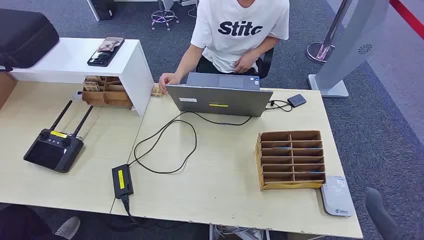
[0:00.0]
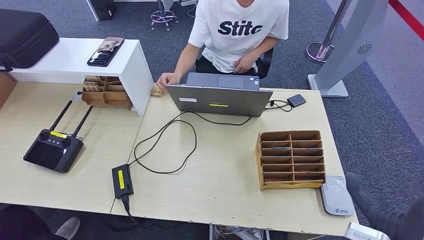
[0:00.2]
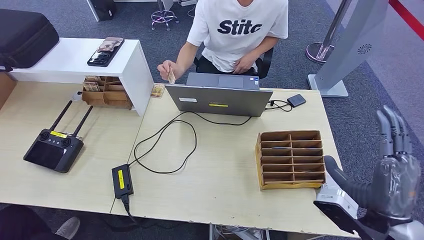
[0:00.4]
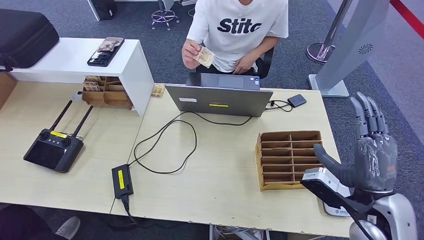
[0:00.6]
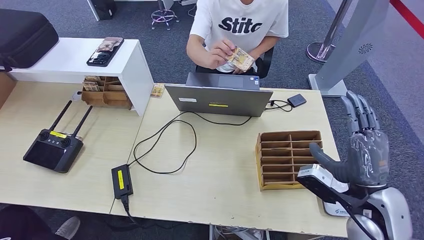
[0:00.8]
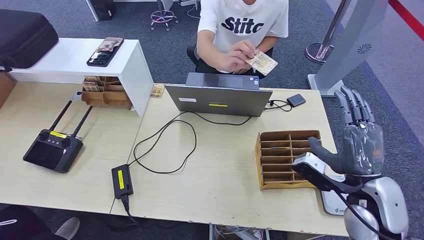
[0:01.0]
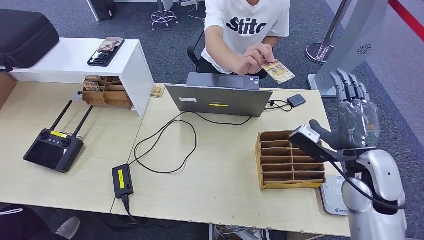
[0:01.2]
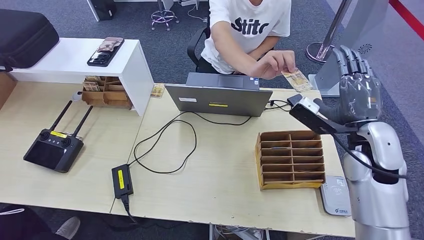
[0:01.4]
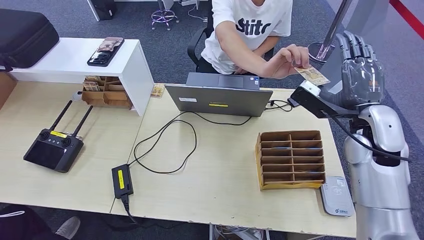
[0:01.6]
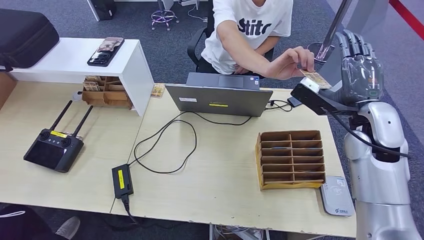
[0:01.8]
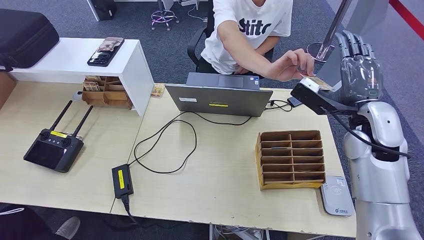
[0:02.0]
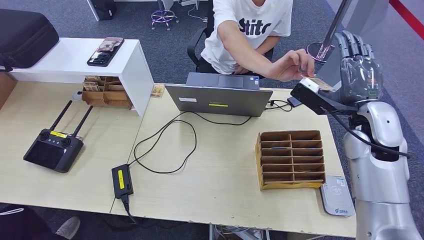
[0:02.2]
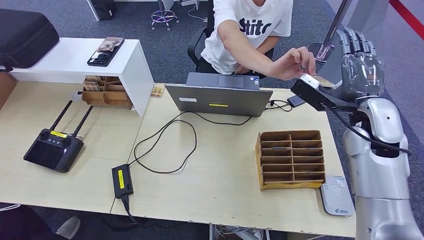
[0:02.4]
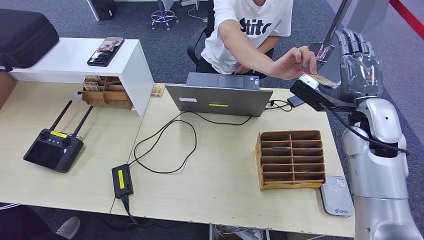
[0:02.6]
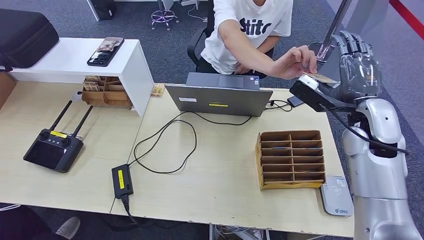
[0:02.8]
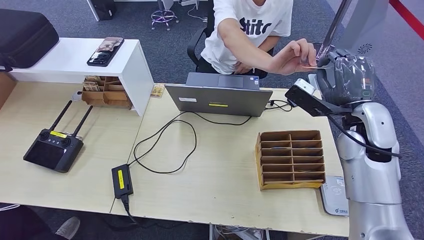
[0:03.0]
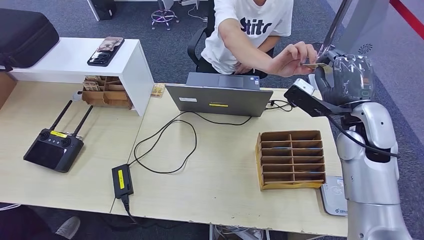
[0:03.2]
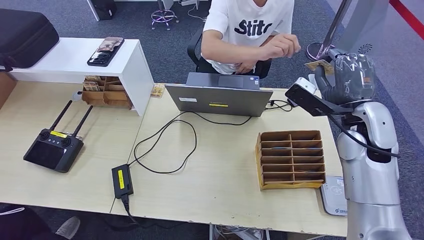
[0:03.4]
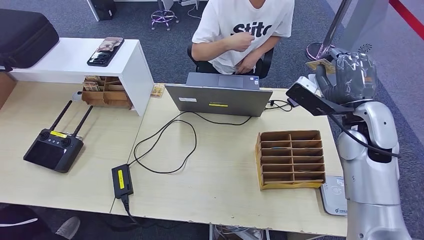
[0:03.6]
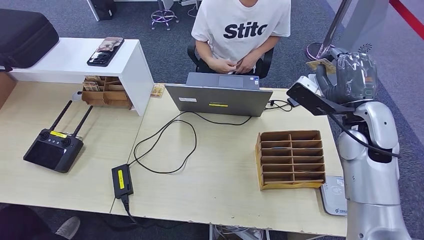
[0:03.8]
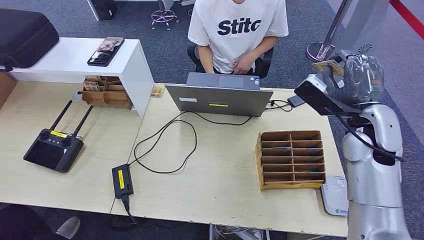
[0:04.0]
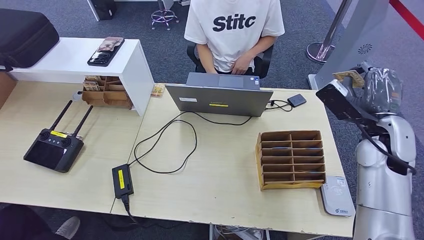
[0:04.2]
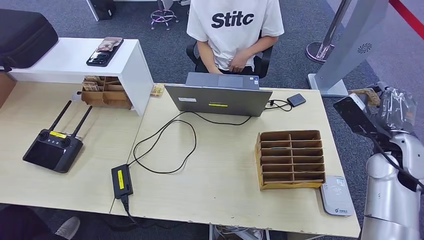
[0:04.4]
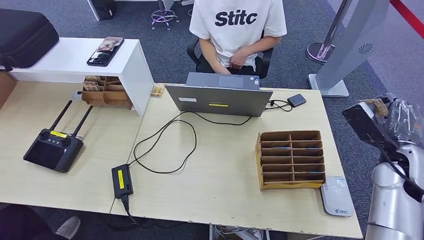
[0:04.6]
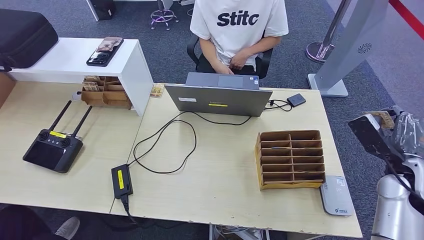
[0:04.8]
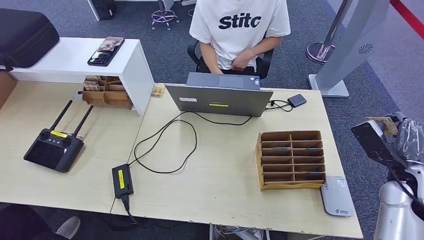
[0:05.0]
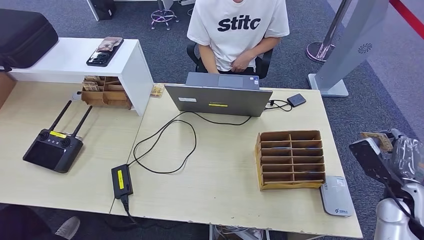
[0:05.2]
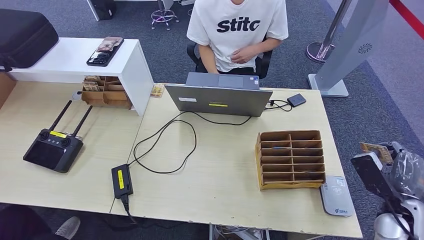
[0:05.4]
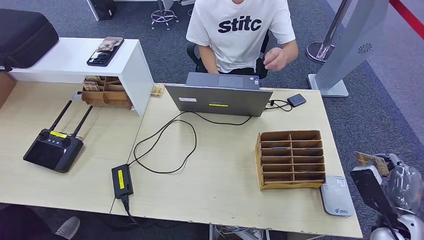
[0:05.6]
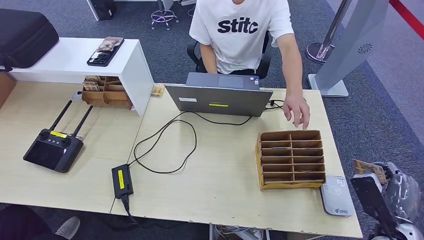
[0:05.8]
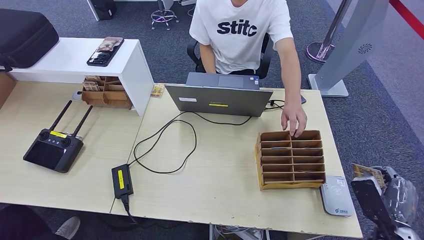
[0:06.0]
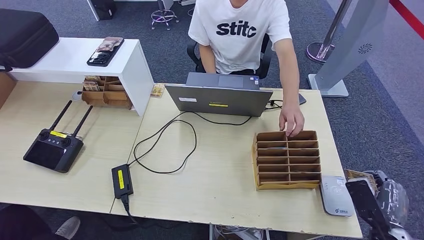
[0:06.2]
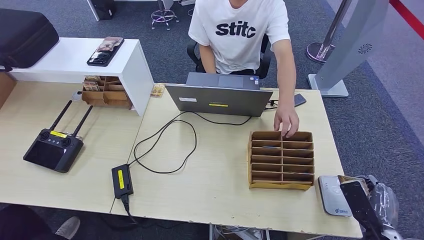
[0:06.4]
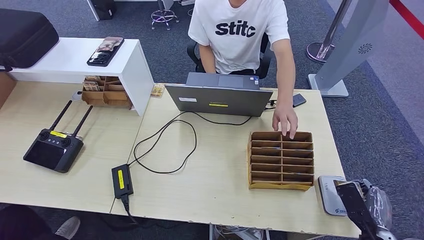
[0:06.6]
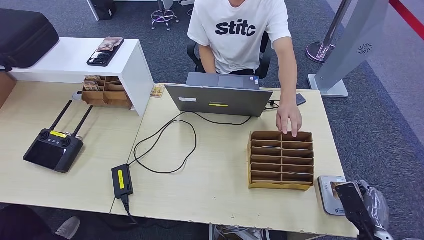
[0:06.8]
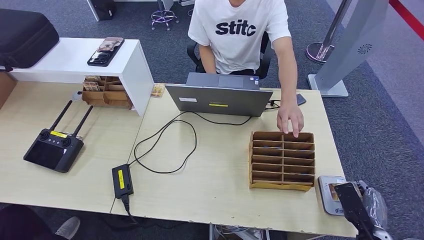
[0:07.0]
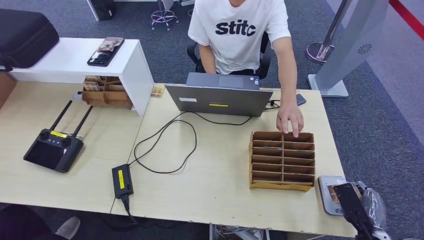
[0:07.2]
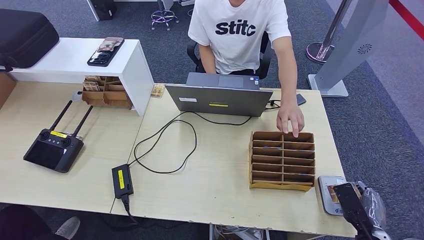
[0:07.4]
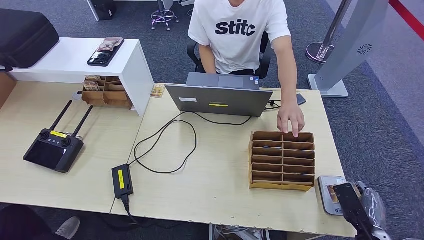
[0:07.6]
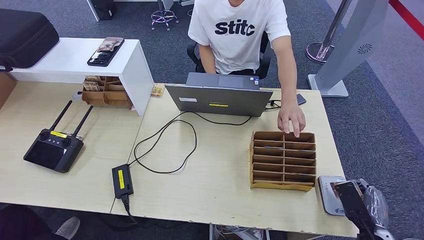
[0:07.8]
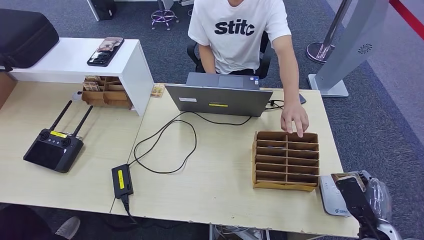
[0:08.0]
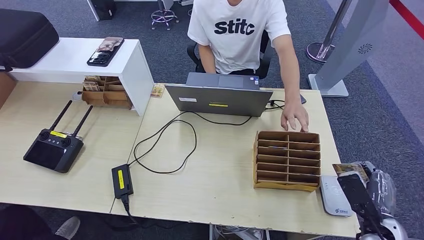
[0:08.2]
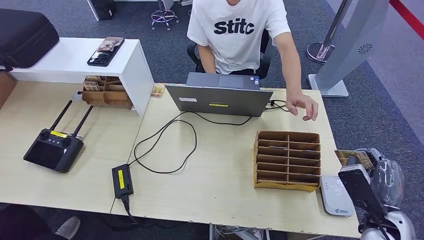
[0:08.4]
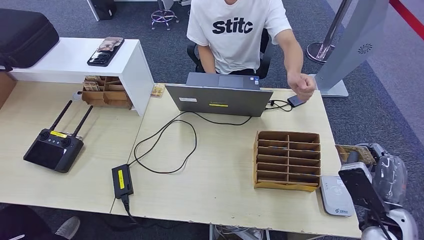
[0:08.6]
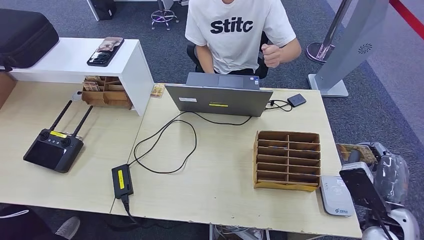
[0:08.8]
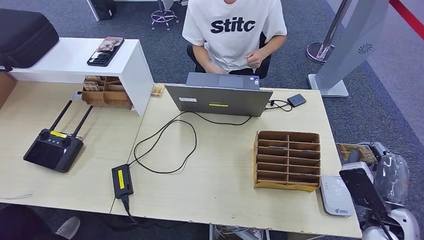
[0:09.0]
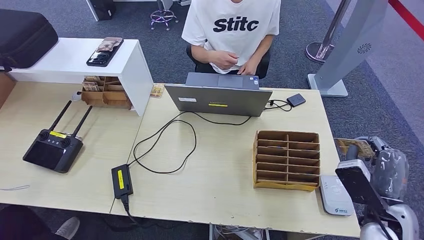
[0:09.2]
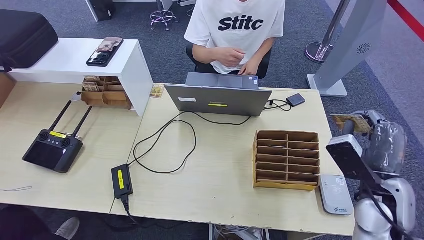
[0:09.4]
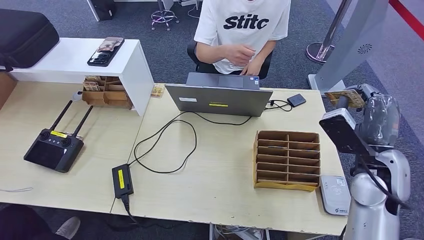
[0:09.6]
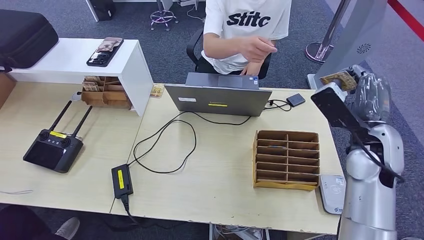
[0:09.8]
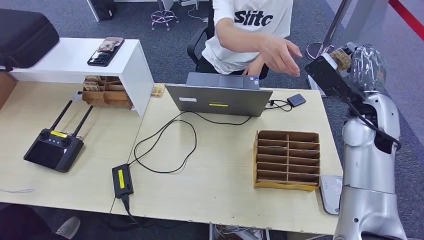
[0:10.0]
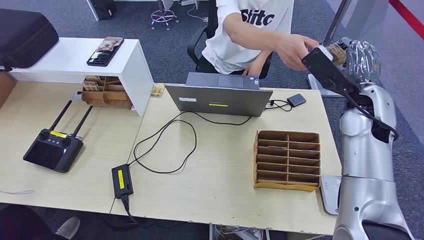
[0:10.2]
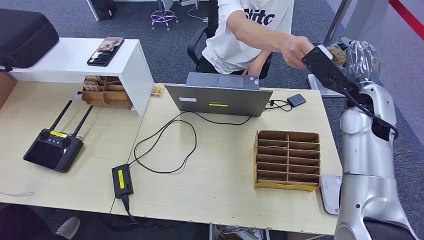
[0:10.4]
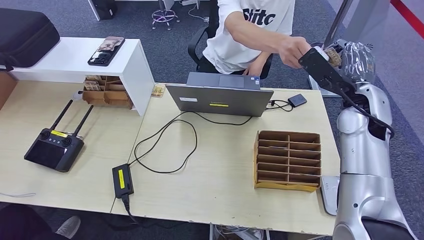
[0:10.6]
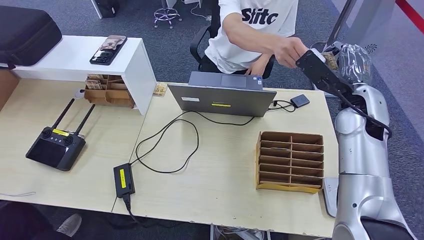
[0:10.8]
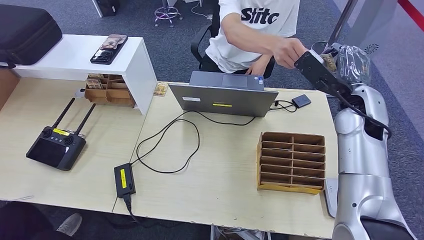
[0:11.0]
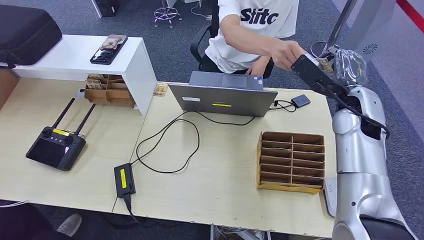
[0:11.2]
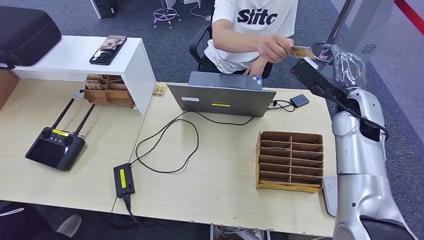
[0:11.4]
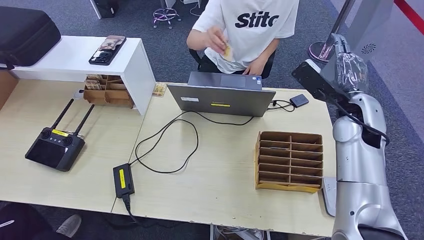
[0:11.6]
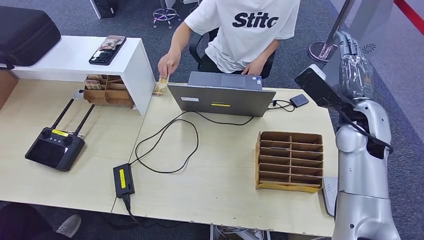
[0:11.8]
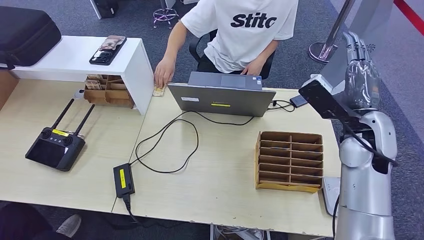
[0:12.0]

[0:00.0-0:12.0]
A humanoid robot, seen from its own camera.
Step, 0:00.0 to 0:04.2: Take the ID card from the person's hand.
Step, 0:04.4 to 0:09.4: Place the ID card on the card reader.
0:01.6 to 0:03.0: The hands make only small movements.
0:03.0 to 0:04.4: The right hand travels to the right and downward by roughly 10 cm.
0:04.4 to 0:06.0: The right hand heads backward and downward, covering approximately 20 cm.
0:06.0 to 0:07.6: The right hand moves downward, approximately 5 cm.
0:07.6 to 0:09.0: The right hand heads upward, covering some 10 cm.
0:09.0 to 0:10.4: The right hand is displaced forward and upward by approximately 25 cm.

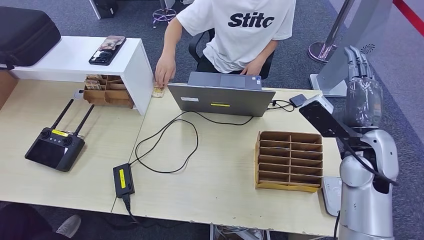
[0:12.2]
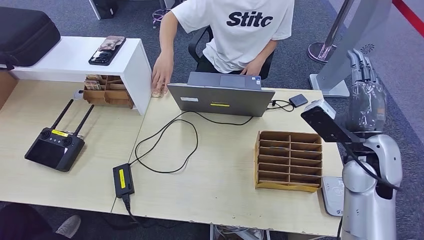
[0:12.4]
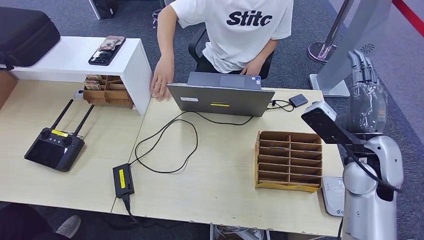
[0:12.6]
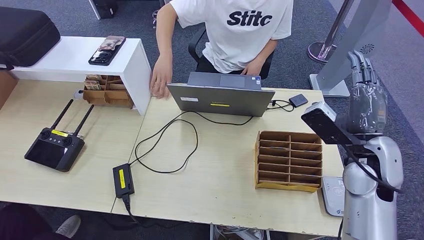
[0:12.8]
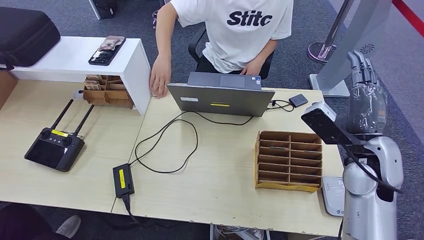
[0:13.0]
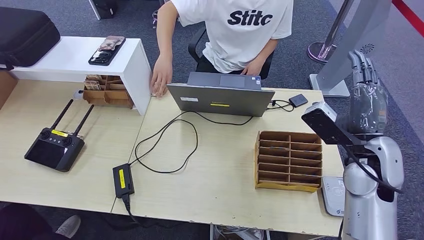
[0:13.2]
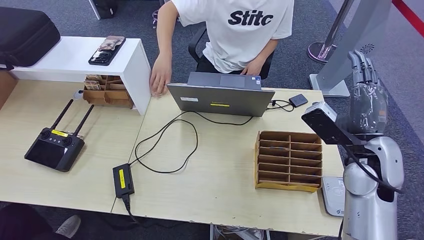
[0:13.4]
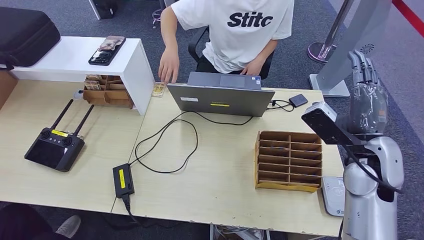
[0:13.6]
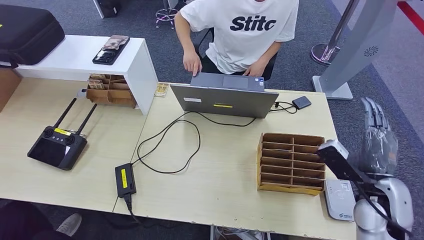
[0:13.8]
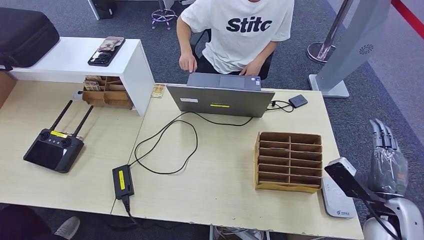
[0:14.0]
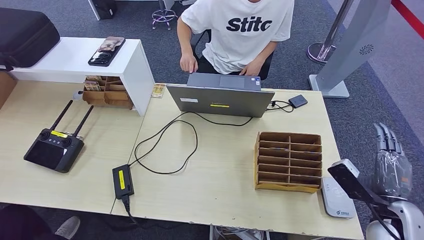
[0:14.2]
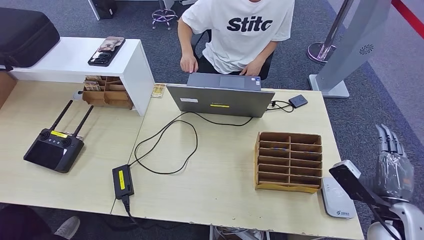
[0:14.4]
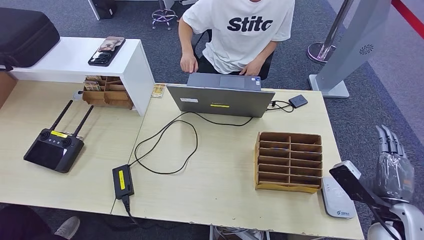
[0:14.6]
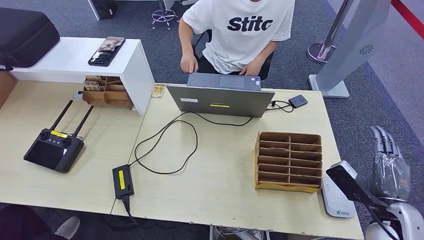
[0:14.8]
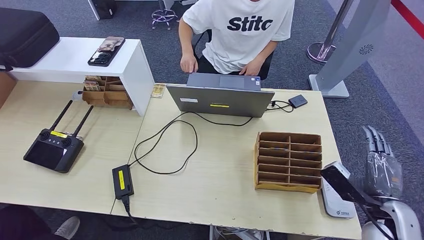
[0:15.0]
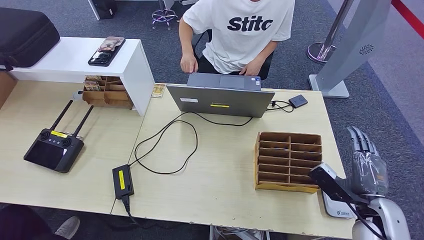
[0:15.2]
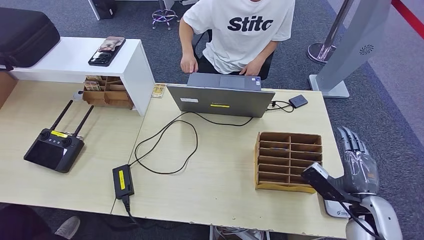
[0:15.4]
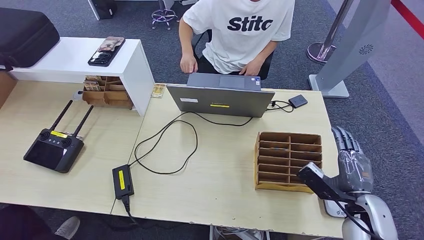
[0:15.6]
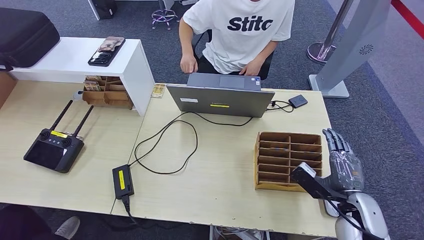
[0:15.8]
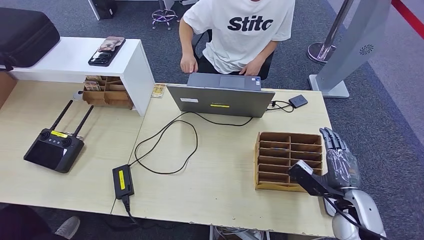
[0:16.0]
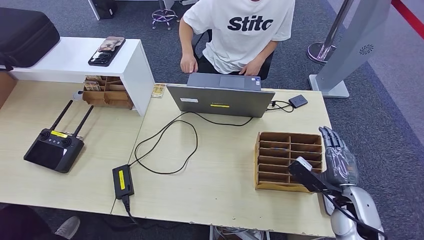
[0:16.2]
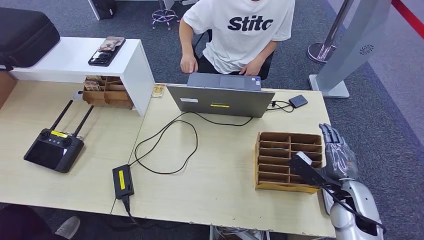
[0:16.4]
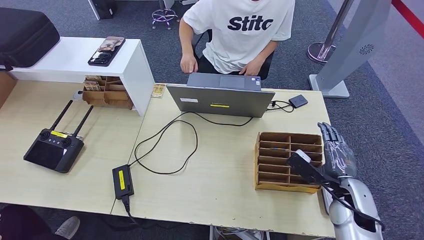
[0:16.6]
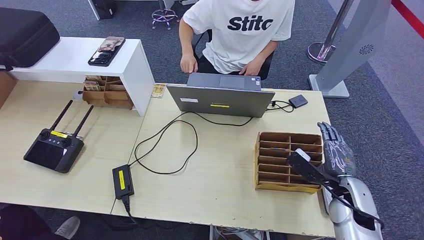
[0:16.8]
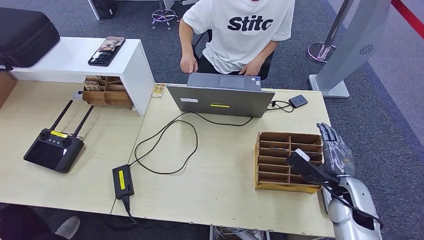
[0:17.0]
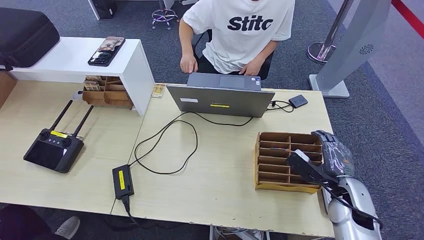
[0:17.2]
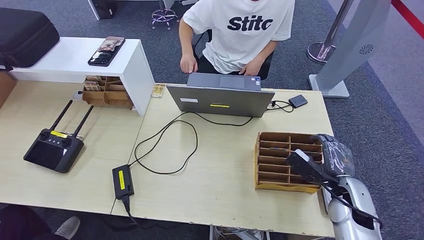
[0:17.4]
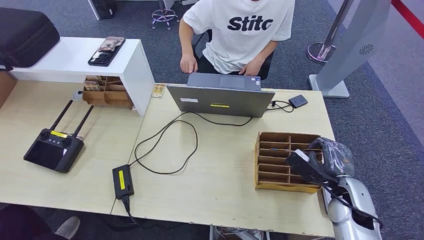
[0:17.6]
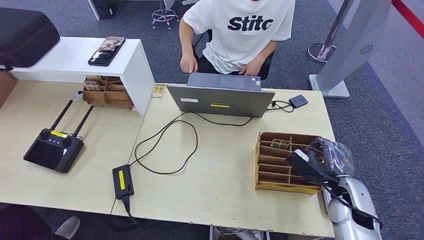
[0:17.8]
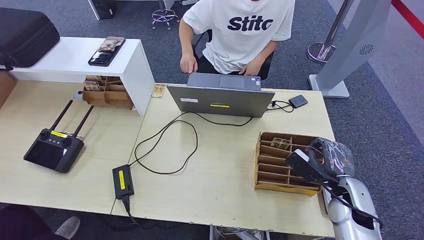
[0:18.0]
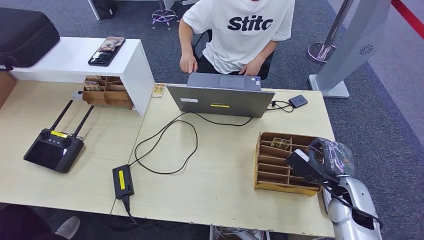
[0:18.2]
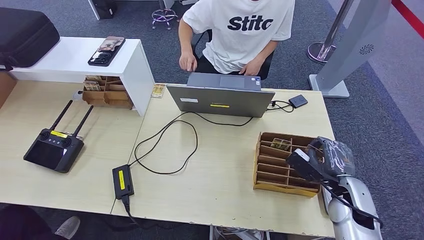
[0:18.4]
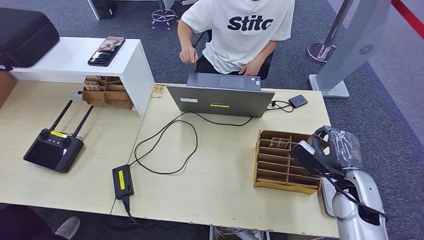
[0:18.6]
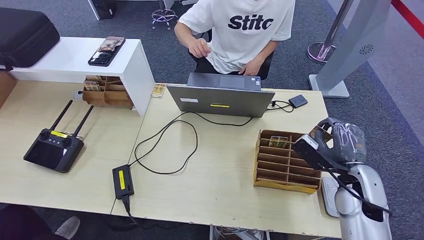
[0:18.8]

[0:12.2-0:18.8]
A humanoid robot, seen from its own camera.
Step, 0:12.8 to 0:18.8: Pick up the room key from the key card box.
0:15.4 to 0:17.2: The right hand heads forward, covering approximately 5 cm.
0:17.2 to 0:18.8: The right hand shifts some 5 cm upward.
